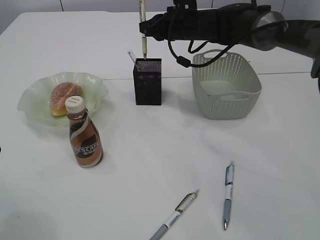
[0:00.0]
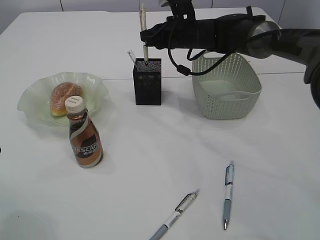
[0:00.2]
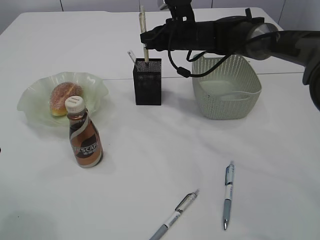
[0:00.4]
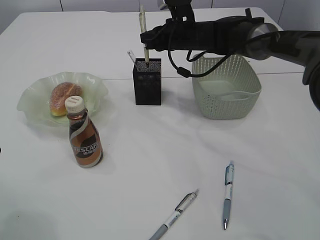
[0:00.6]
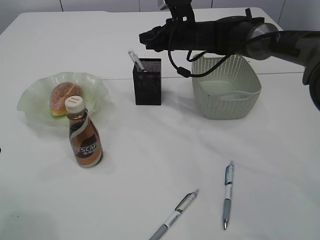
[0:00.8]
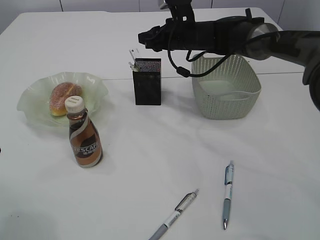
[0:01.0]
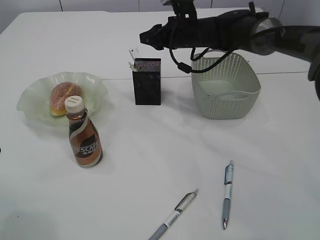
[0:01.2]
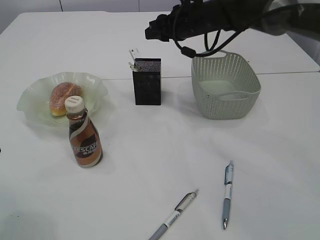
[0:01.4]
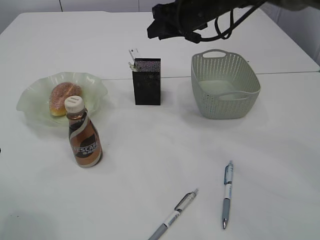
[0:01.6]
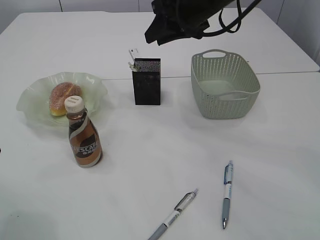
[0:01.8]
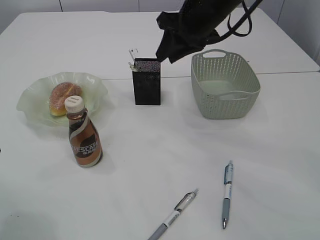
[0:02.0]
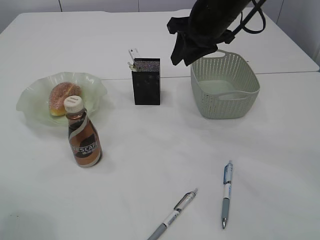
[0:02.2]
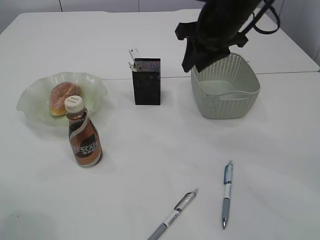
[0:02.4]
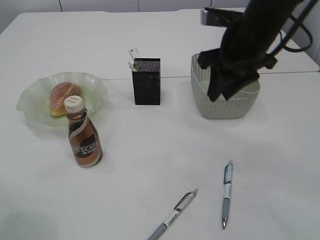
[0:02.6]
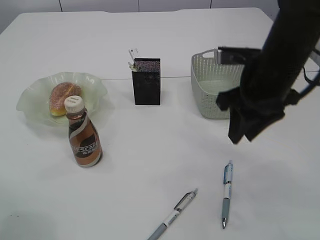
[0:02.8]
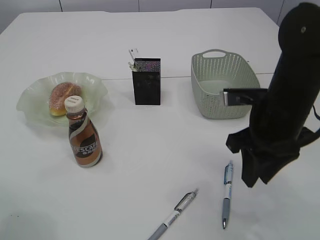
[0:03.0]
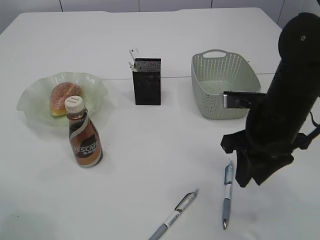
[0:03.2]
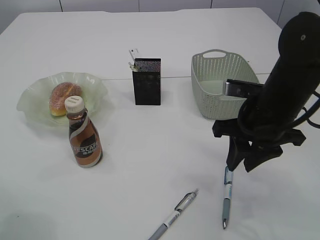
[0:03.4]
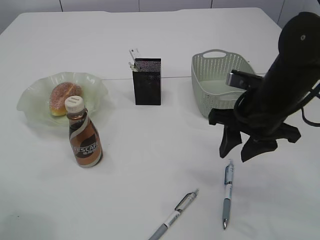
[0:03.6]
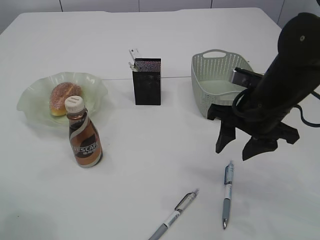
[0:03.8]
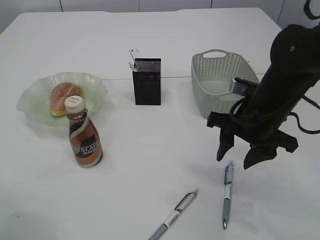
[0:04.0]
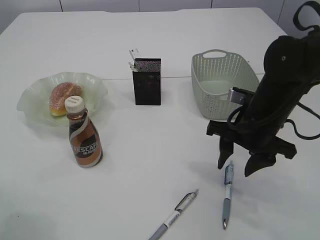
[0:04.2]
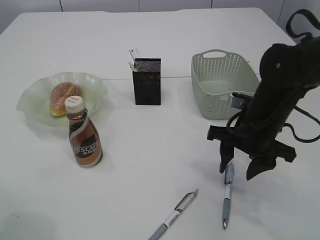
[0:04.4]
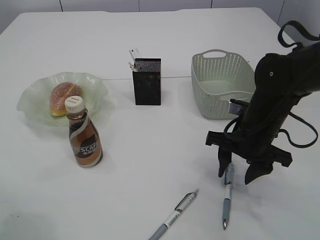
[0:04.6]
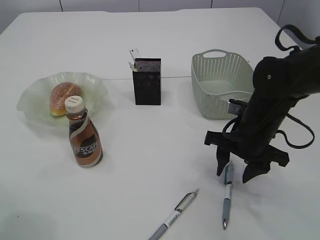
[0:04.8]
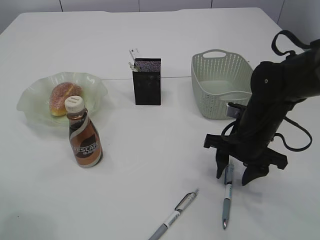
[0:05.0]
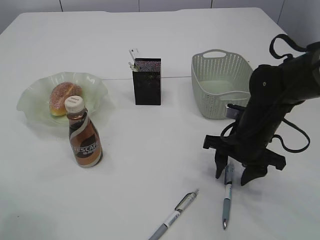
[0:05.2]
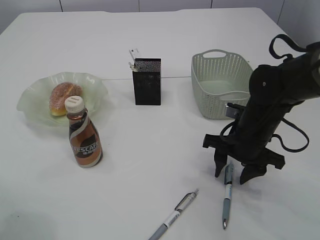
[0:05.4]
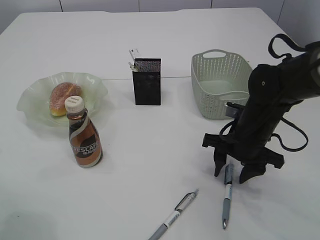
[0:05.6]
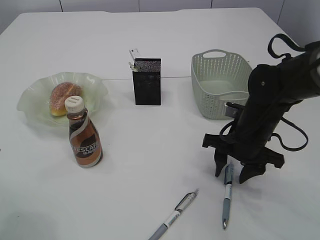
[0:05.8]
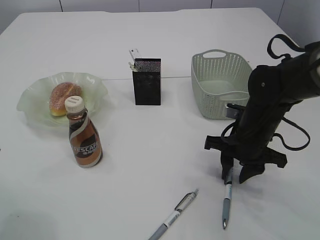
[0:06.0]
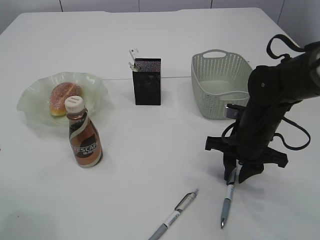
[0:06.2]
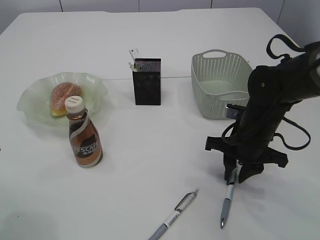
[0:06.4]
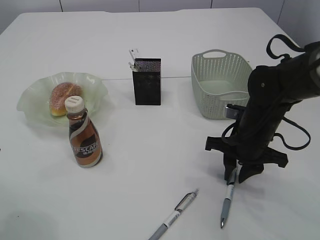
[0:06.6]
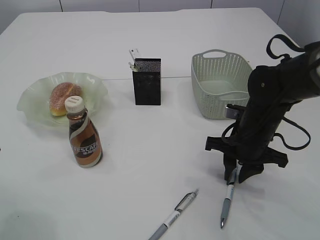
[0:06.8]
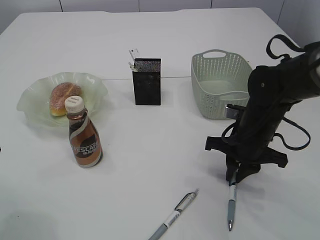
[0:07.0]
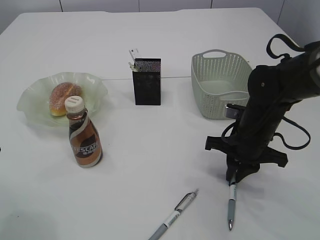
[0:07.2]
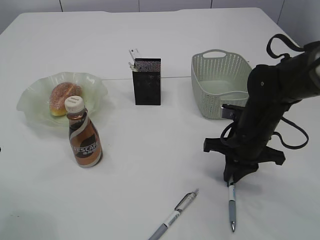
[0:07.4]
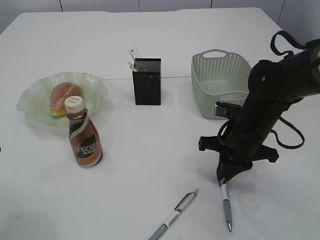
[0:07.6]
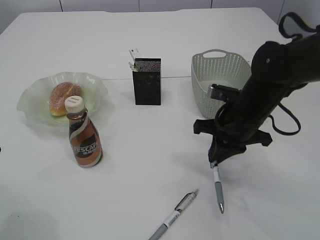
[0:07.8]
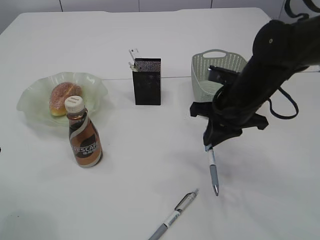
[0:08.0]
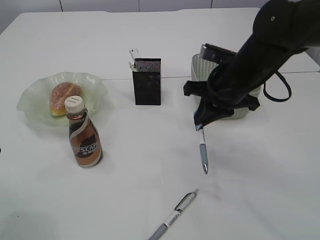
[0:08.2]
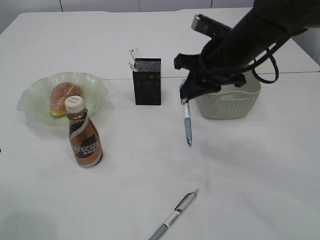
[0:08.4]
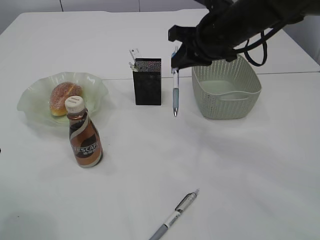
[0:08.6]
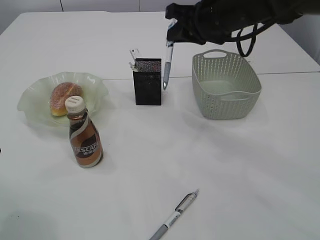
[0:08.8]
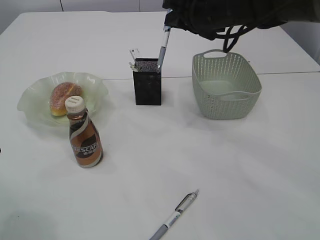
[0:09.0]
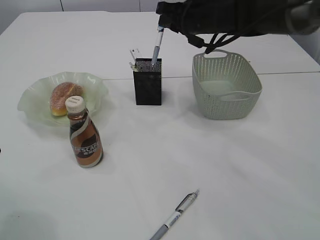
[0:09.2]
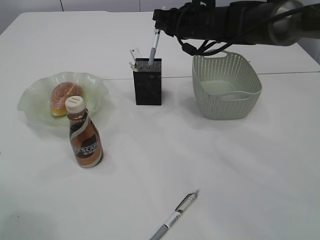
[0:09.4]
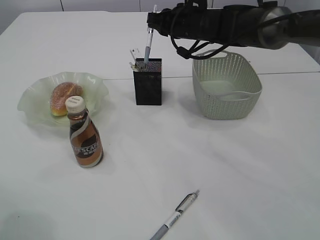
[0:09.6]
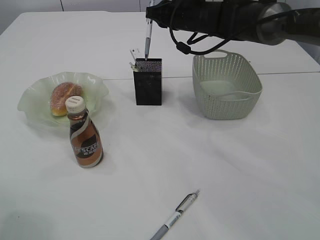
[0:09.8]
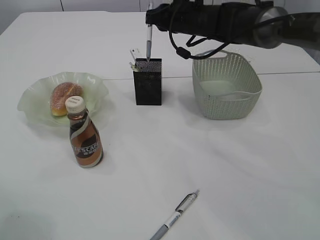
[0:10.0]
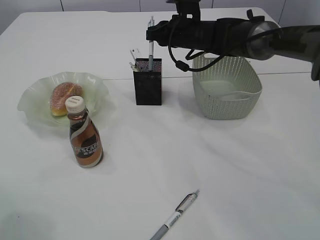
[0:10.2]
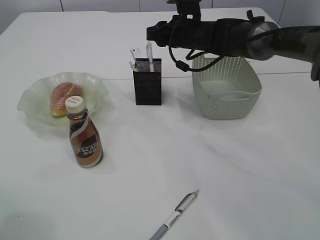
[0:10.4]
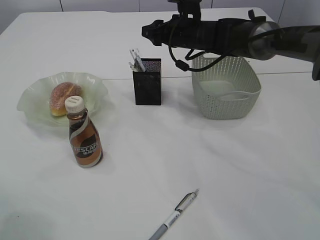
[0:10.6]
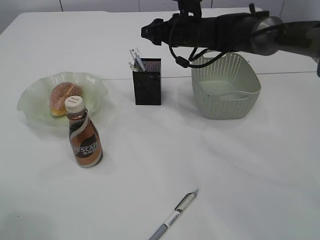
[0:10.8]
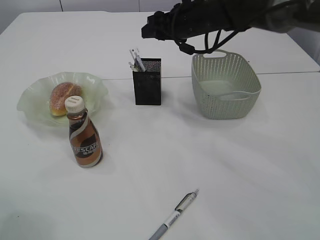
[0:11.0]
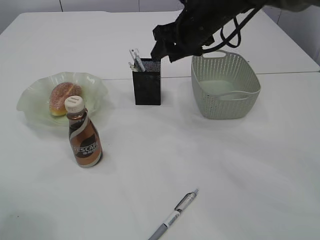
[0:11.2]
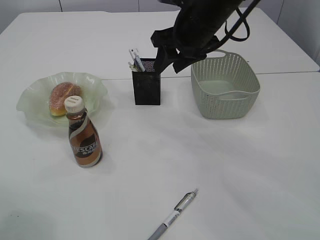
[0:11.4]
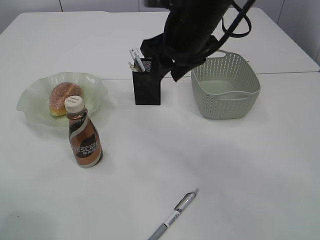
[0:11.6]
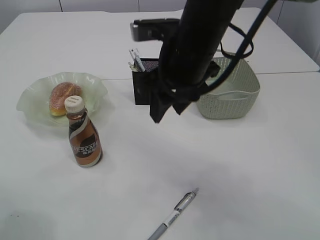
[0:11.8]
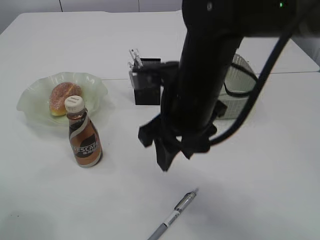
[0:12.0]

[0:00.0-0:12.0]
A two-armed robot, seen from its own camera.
Step, 0:01.4 to 0:08.0: Pick up the pen with right arm.
Step, 0:08.2 to 0:10.8: Place the pen into the pen holder.
0:00.0 to 0:01.6: The right gripper changes place by about 5 cm, and opens up.
0:01.6 to 0:03.0: The right gripper travels backward by about 20 cm.
0:03.0 to 0:04.4: The right gripper goes some 5 cm downward.
0:04.4 to 0:06.0: The grippers make only small movements.
0:06.0 to 0:07.6: The right gripper closes its fingers.
0:07.6 to 0:09.0: The right gripper is displaced upward and forward by some 20 cm.
0:09.0 to 0:10.4: The right gripper goes approximately 10 cm forward and downward.
0:10.4 to 0:12.0: The right gripper moves backward, about 25 cm, and opens up.

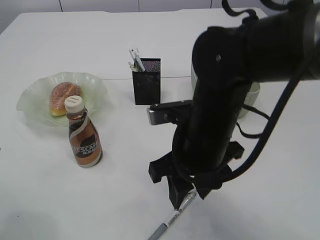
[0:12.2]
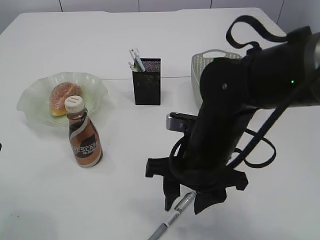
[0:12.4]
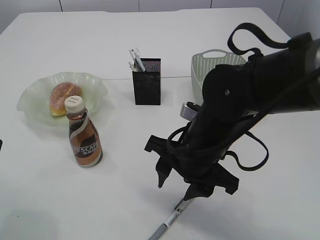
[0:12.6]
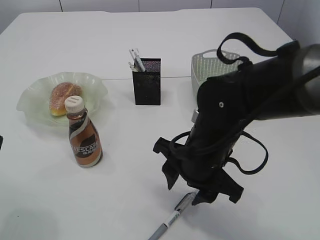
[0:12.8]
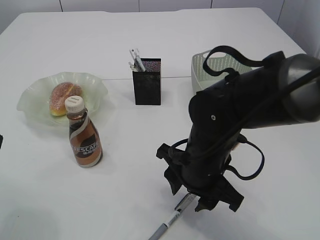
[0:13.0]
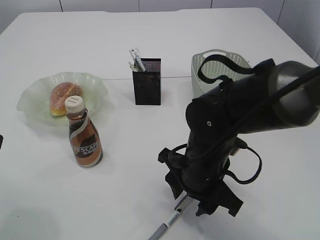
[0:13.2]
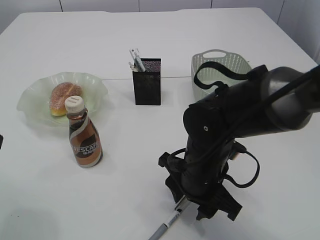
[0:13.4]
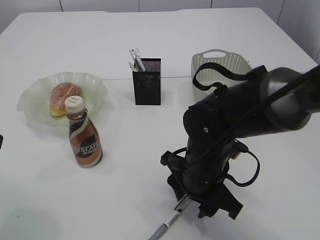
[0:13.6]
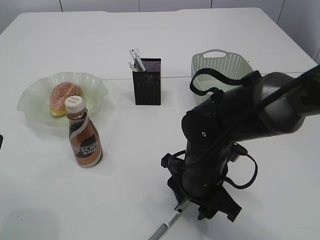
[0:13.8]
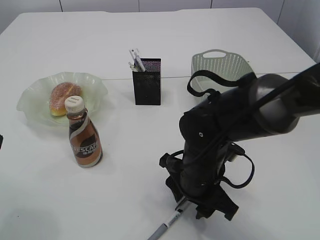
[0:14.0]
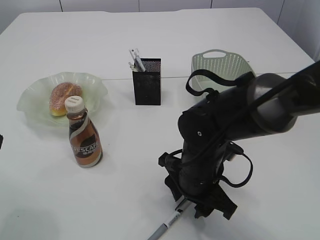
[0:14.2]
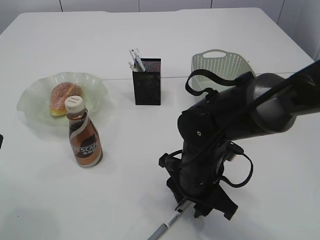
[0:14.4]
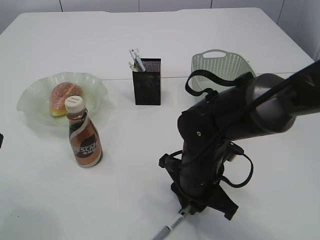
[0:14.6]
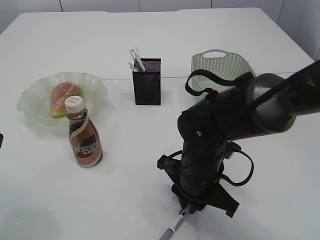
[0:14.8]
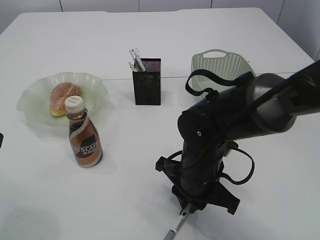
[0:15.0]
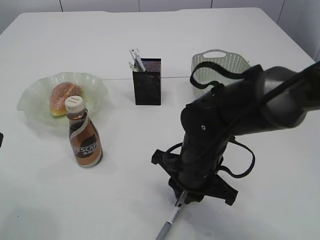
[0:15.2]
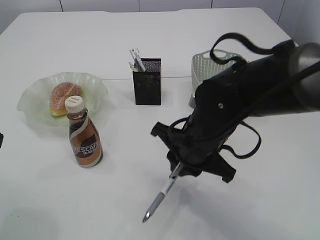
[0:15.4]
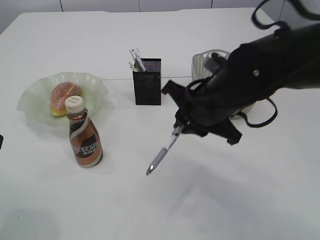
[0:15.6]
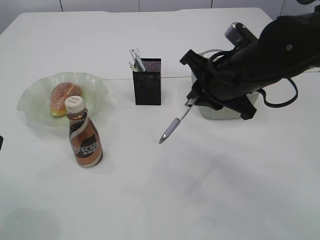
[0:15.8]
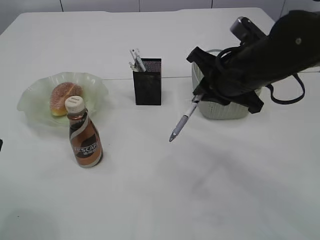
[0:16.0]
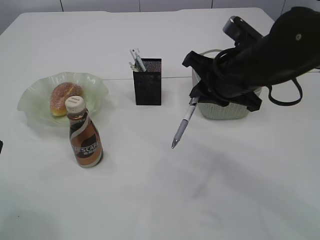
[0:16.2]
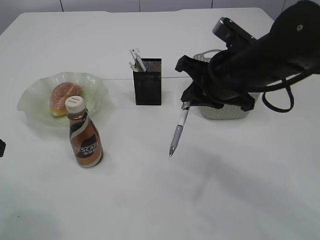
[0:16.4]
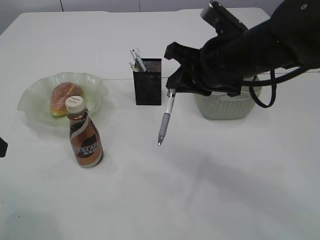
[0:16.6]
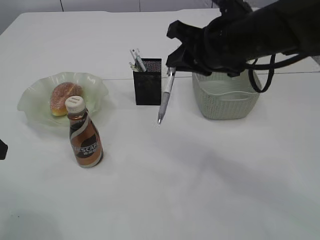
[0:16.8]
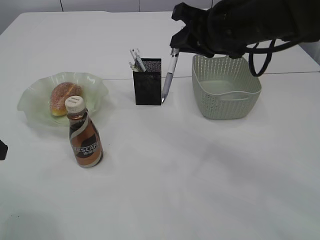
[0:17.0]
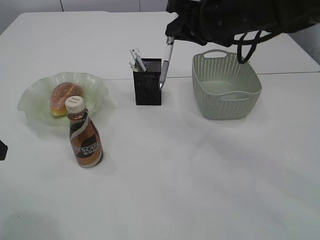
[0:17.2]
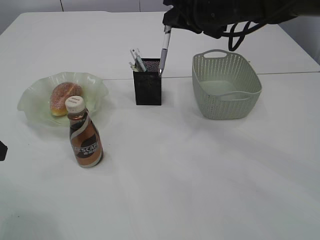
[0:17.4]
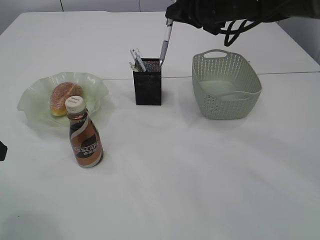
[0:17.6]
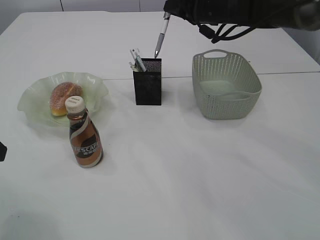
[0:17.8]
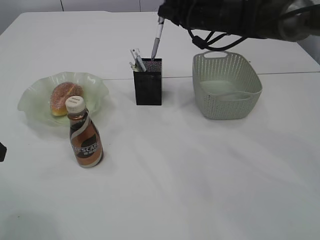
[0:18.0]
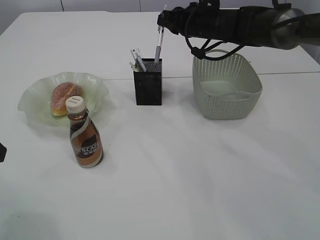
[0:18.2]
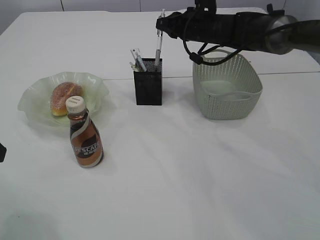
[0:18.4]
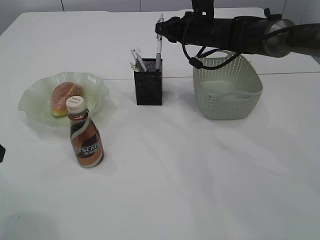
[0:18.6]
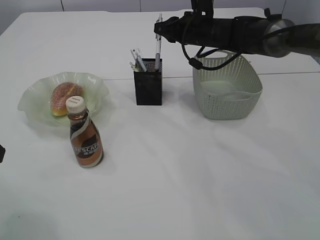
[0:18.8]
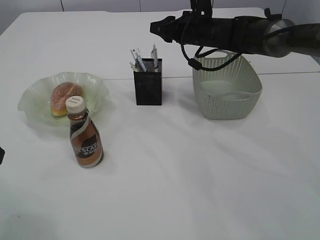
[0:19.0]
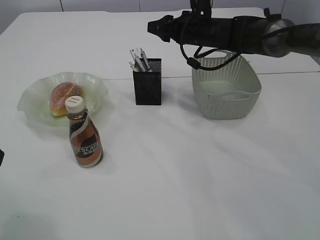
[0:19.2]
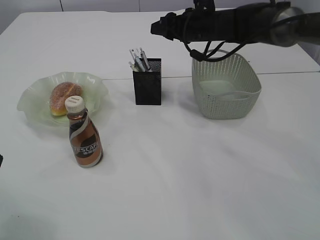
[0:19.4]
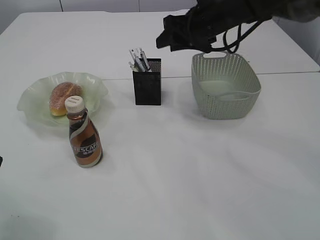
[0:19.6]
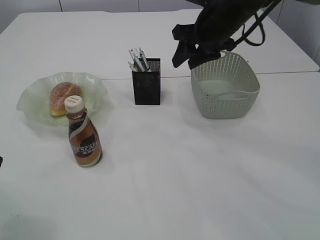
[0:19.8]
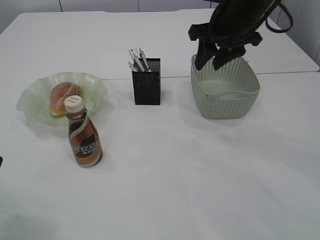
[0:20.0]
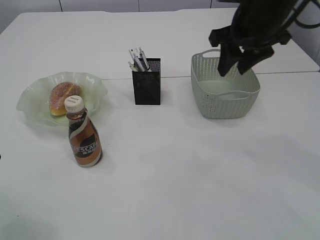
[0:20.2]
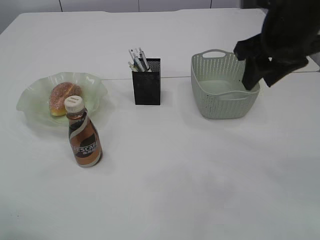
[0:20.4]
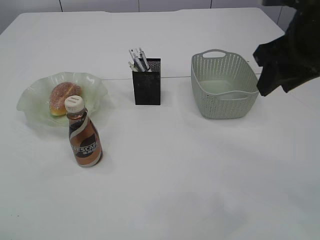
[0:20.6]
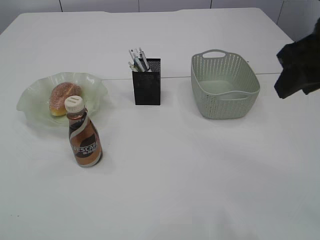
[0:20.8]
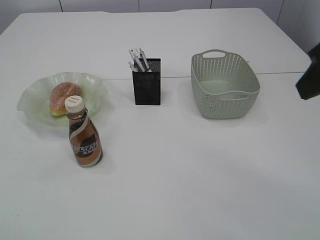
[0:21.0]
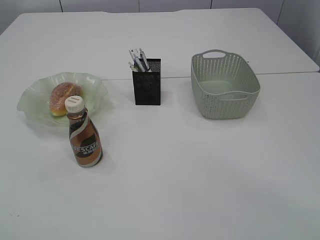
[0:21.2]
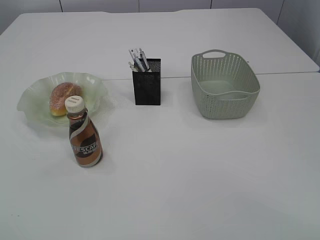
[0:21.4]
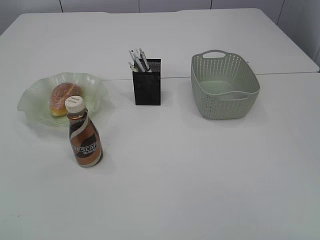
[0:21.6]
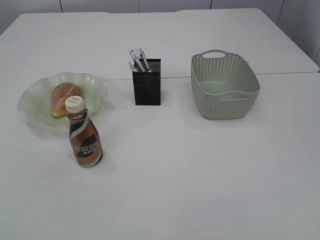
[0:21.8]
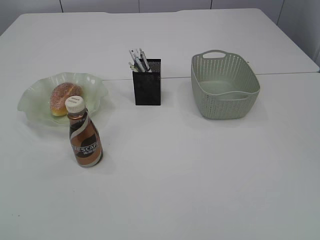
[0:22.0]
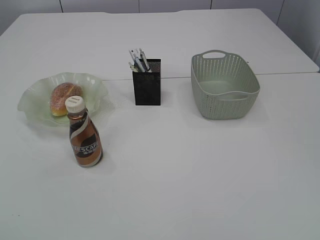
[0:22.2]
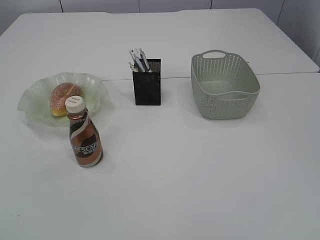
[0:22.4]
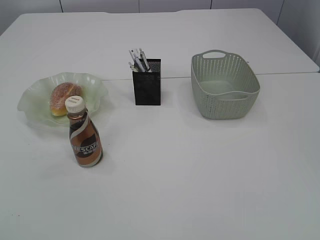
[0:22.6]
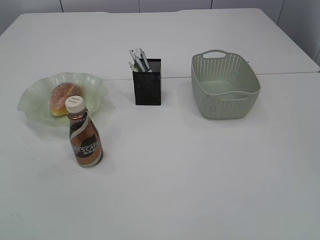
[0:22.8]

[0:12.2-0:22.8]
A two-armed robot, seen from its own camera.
Step, 0:12.2 to 0:15.6: Pick up the pen with right arm.
Step, 0:15.8 to 0:20.4: Place the pen into the pen holder.
0:12.2 to 0:13.8: The right gripper is displaced downward by roughly 10 cm.
0:13.8 to 0:15.2: The right gripper closes up.
0:15.2 to 0:16.8: The right gripper is displaced upward and forward by roughly 15 cm.
0:16.8 to 0:18.2: The right gripper is displaced forward by about 20 cm.
0:18.2 to 0:19.8: The right gripper moves backward, roughly 5 cm, and opens.
0:19.8 to 0:21.2: The left gripper is displaced backward and upward by roughly 20 cm. Meanwhile the right gripper moves backward, approximately 30 cm.
